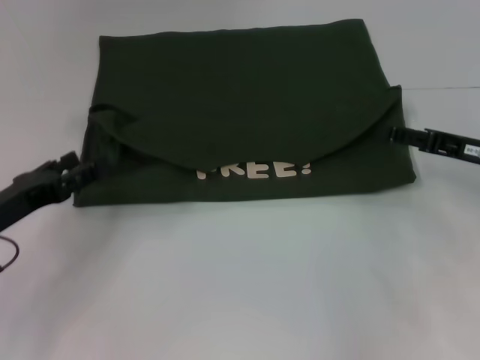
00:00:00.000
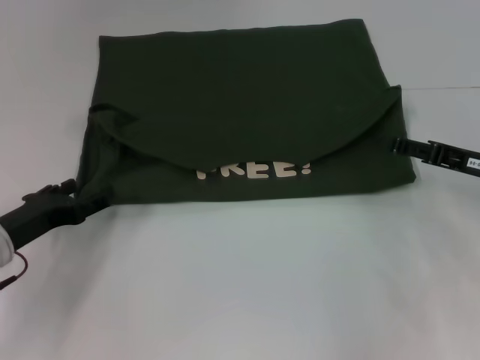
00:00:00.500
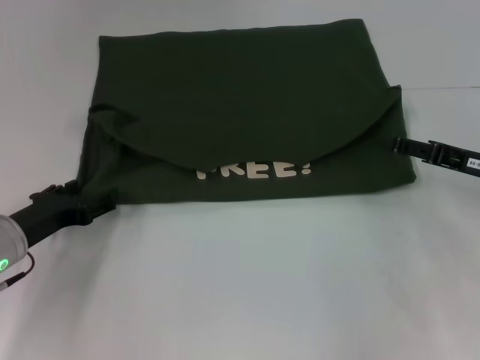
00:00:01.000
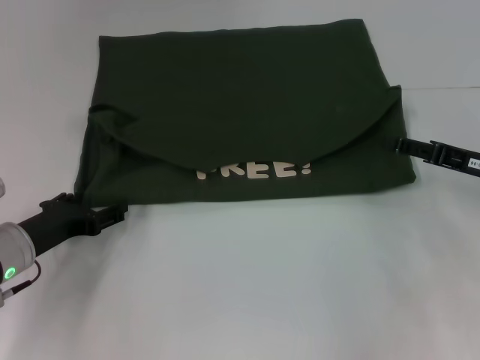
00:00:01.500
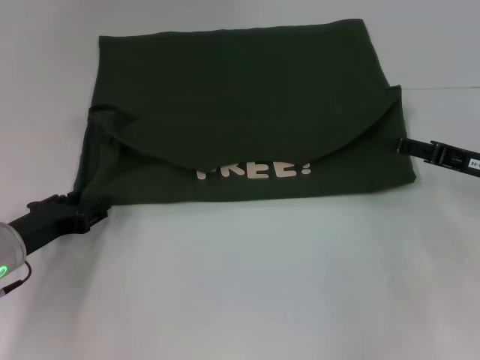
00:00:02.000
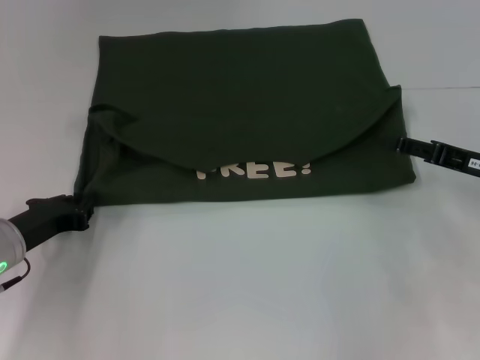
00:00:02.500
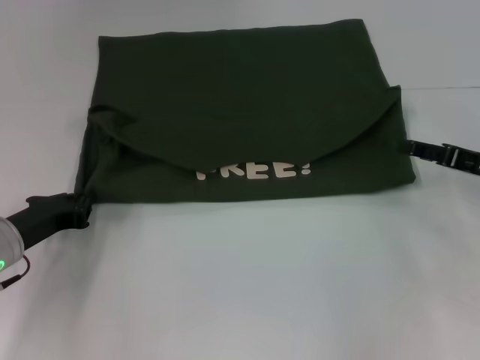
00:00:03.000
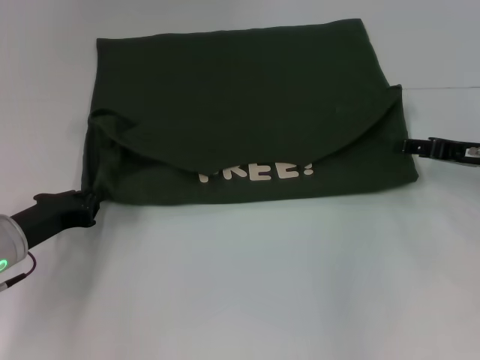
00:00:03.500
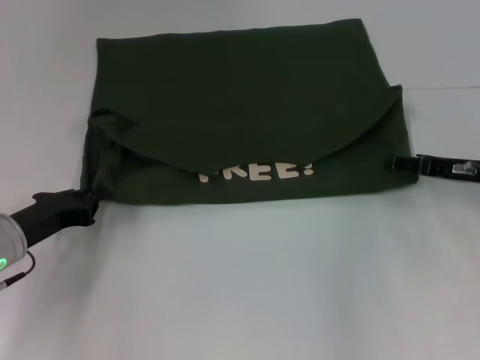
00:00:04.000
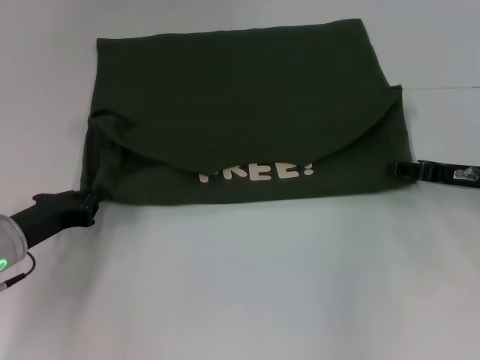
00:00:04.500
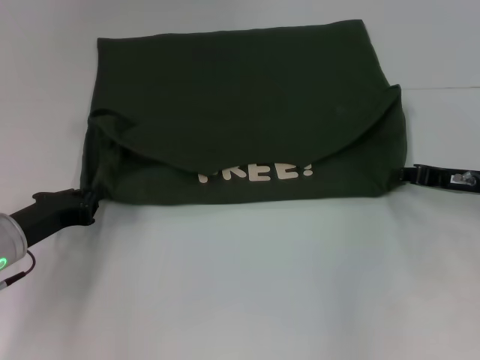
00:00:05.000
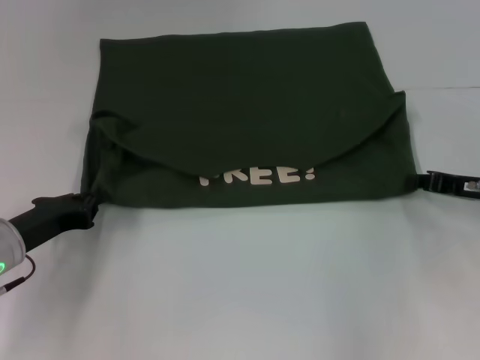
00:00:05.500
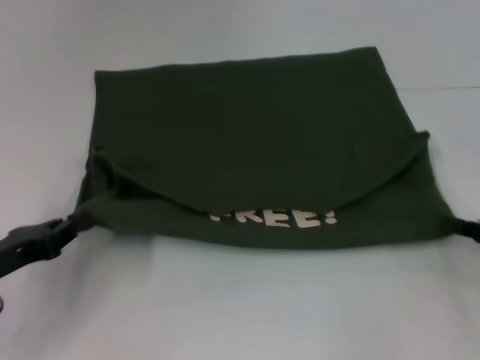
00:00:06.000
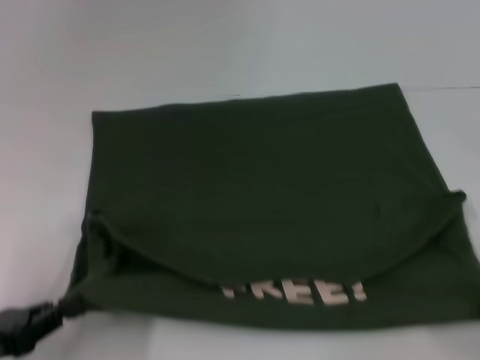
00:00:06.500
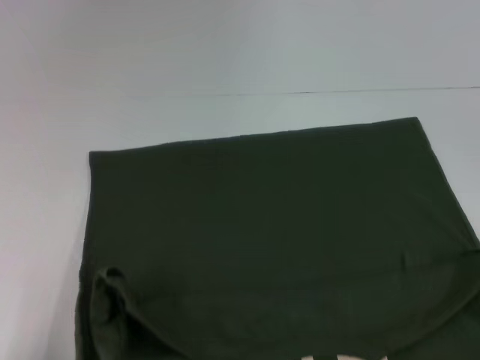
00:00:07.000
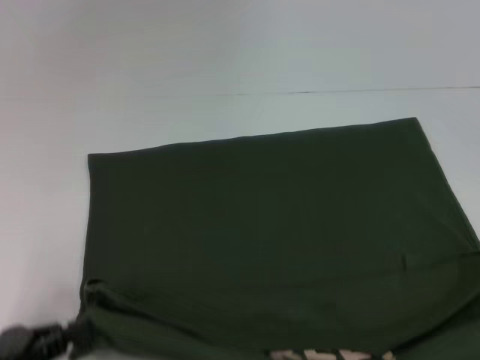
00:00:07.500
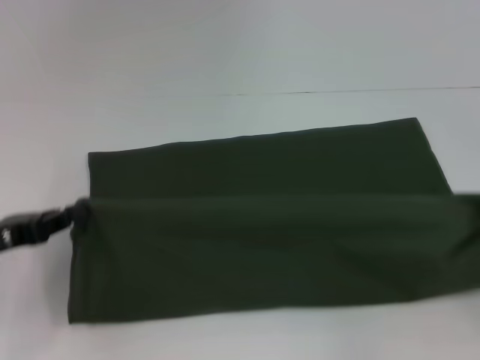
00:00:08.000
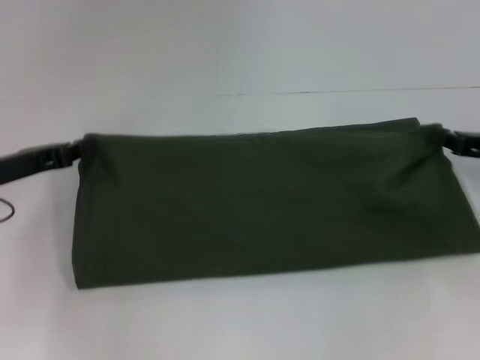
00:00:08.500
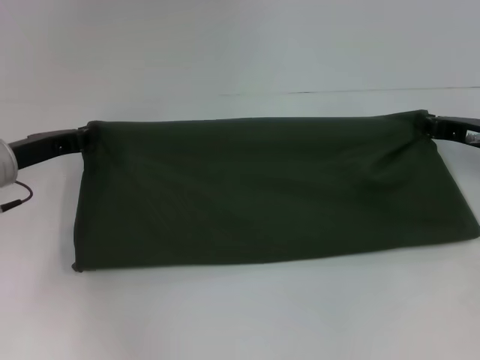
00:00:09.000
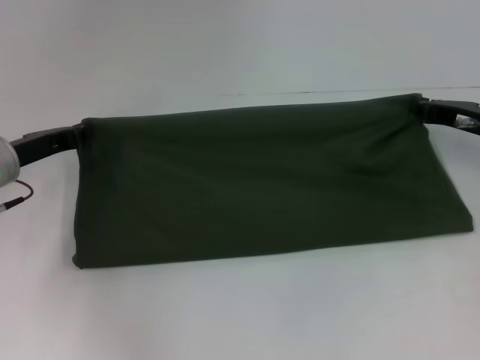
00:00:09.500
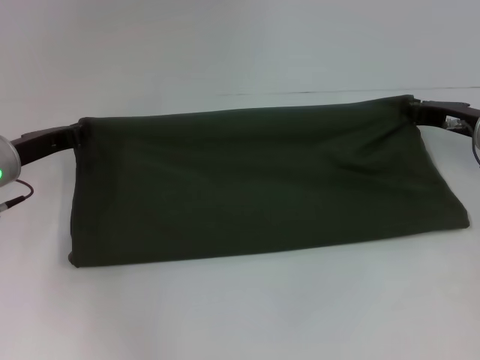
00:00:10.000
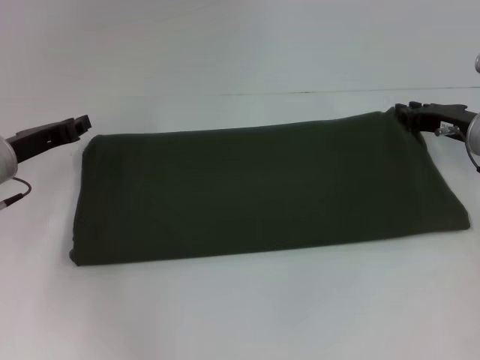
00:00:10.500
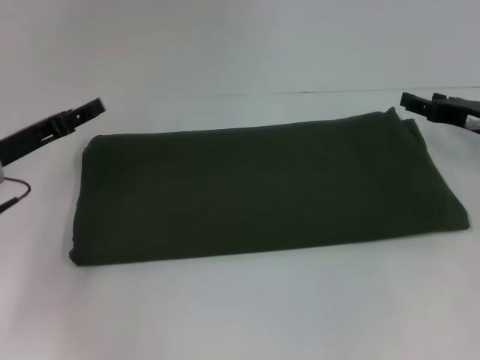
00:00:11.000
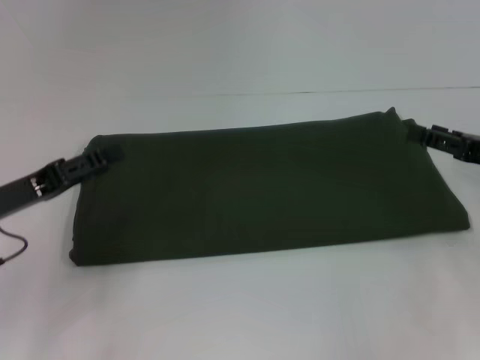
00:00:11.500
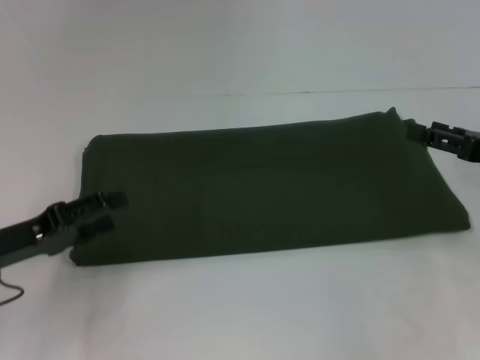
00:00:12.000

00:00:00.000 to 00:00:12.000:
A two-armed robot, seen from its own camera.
Step, 00:00:00.000 to 00:00:07.000: Pull the clothes with your left hand.
Step, 00:00:00.000 to 00:00:07.000: Pull the clothes with your right hand.
Step, 00:00:07.500 to 00:00:10.000: Fold the clothes with your right hand.
00:00:00.000 to 00:00:02.000: The left gripper changes place by about 5 cm.
00:00:02.000 to 00:00:04.000: The left gripper closes up.
00:00:04.000 to 00:00:06.000: The left gripper travels backward by about 5 cm. Meanwhile the right gripper goes roughly 10 cm backward and to the right, and closes.
00:00:06.000 to 00:00:08.000: The right gripper reaches approximately 20 cm backward, then returns. Meanwhile the left gripper travels backward and back again, some 10 cm each way.
00:00:08.000 to 00:00:10.000: The right gripper shifts about 20 cm forward and to the left. Meanwhile the left gripper shifts roughly 10 cm forward.
00:00:10.000 to 00:00:12.000: Both grippers travel together backward, some 10 cm. The right gripper opens its fingers. The left gripper opens up.

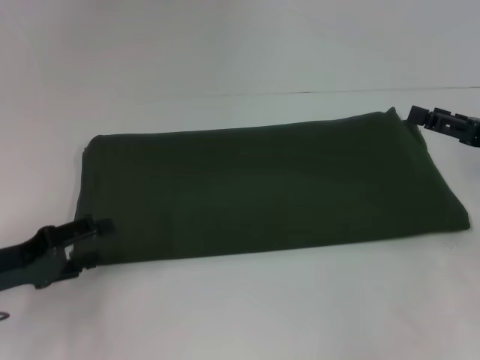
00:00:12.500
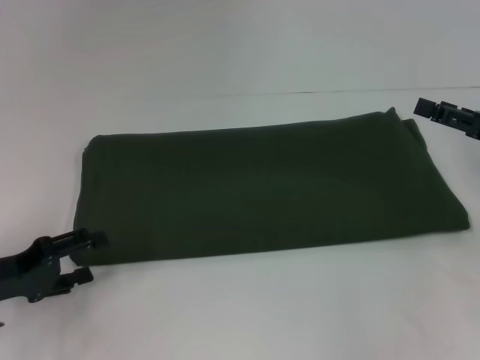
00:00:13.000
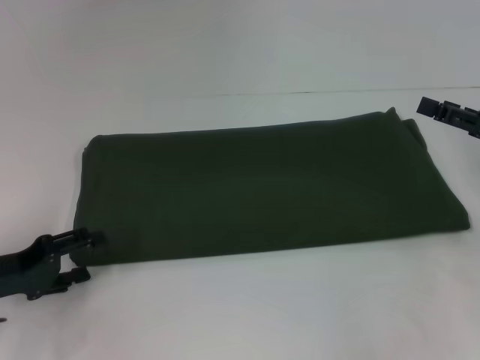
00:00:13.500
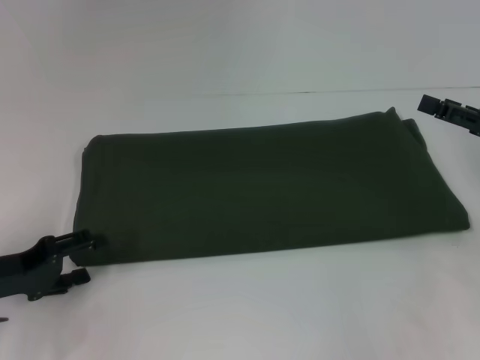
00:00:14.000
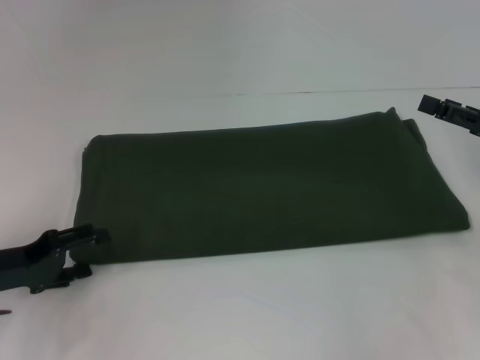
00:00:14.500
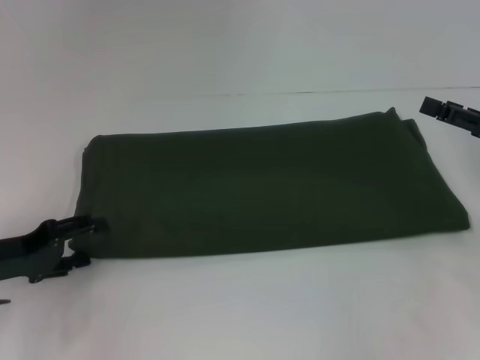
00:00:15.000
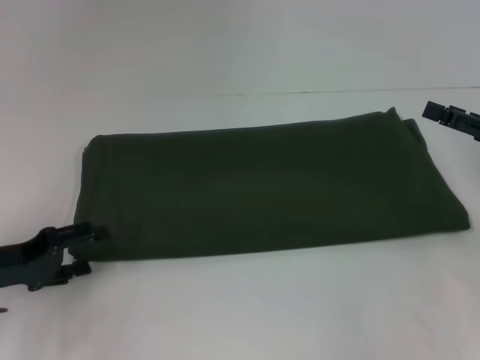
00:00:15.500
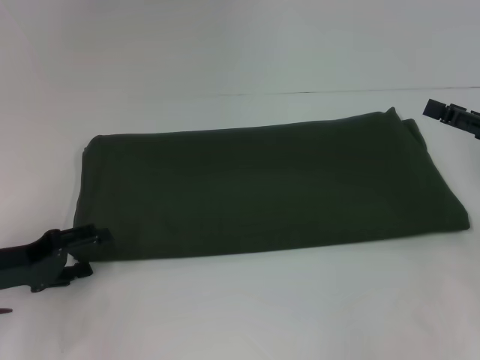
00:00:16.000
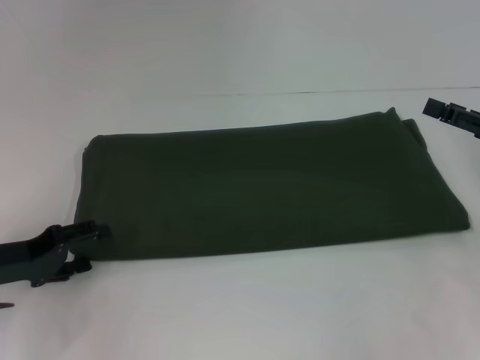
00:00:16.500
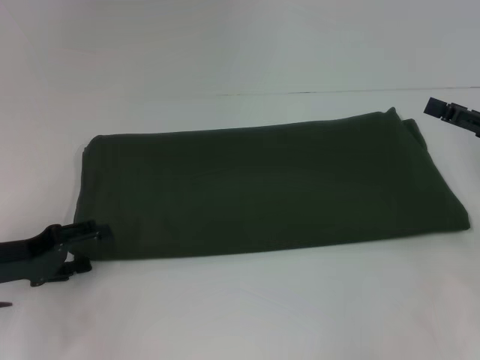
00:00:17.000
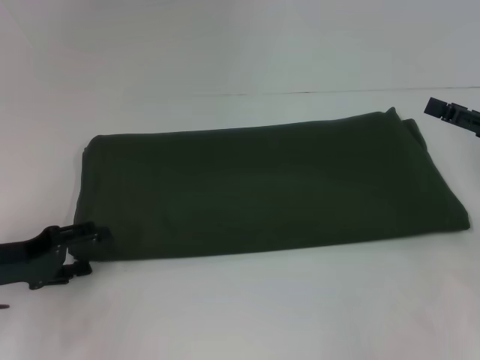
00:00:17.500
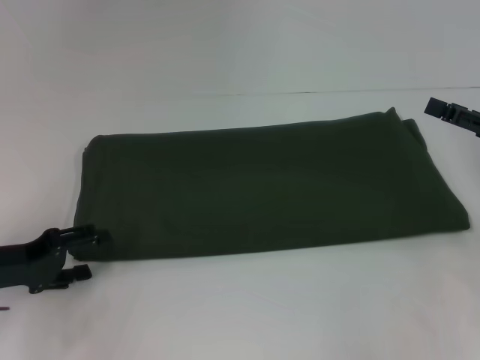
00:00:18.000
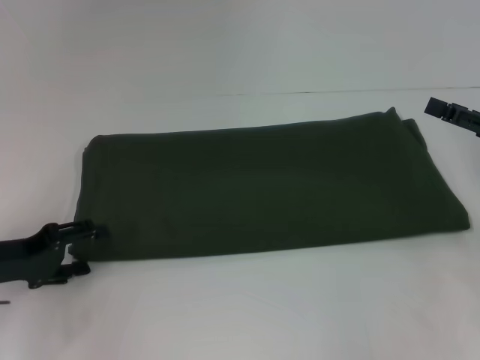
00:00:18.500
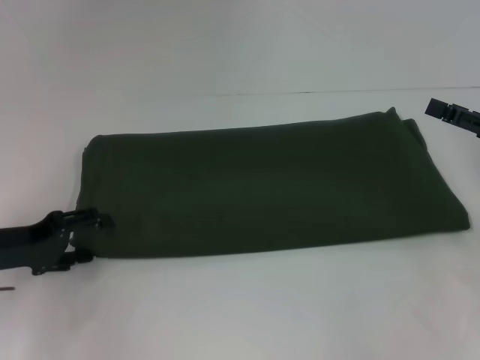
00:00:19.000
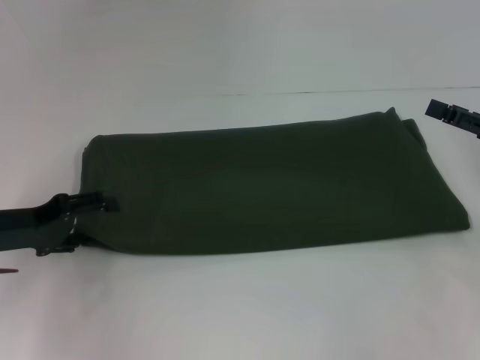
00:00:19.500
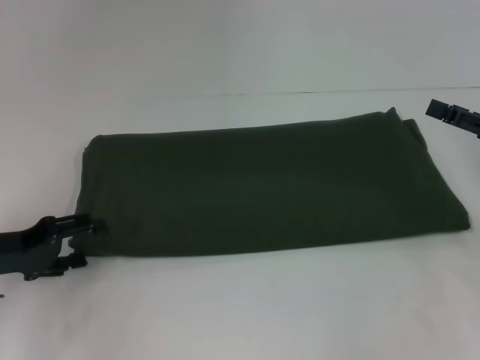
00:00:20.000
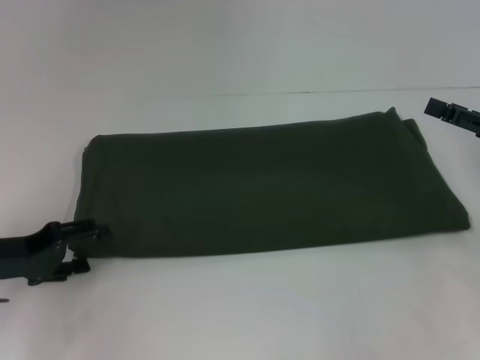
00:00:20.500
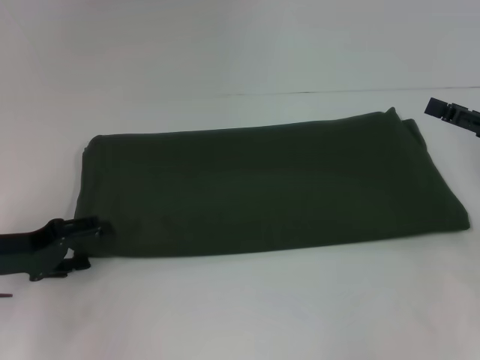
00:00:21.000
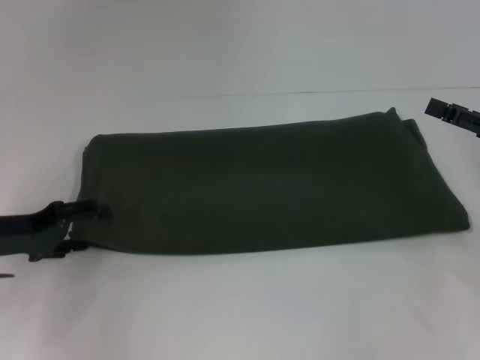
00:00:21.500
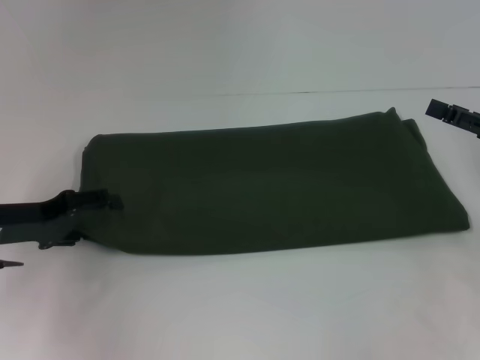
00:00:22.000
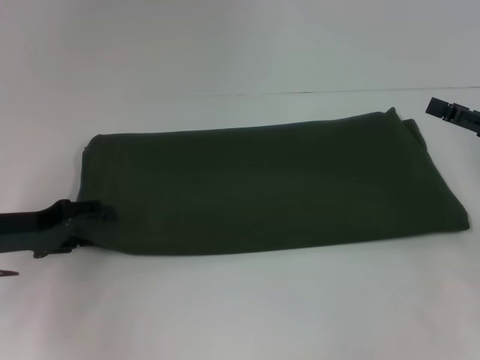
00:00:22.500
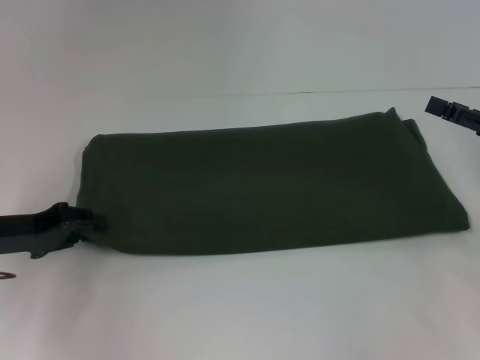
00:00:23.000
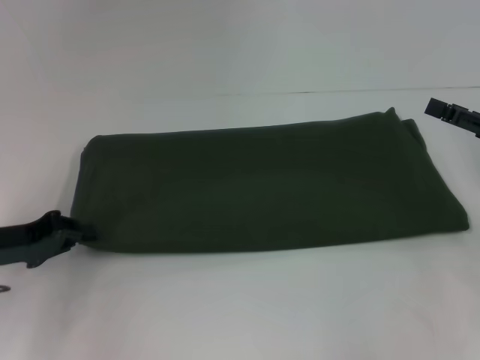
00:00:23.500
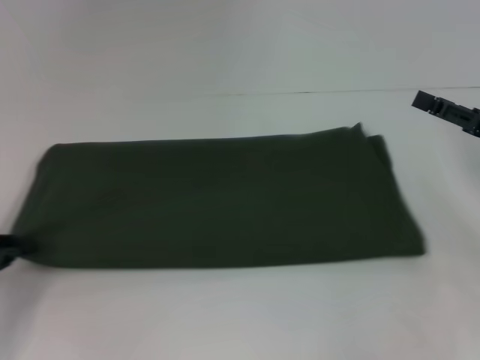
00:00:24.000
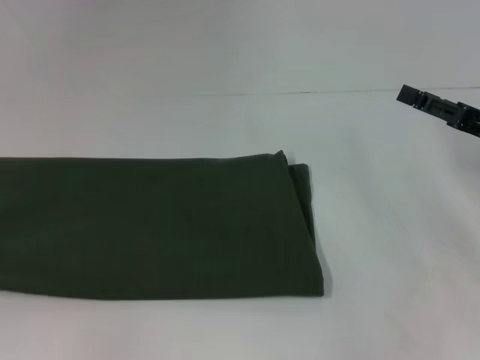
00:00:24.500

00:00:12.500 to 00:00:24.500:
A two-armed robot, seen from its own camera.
00:00:12.500 to 00:00:14.500: The grippers stay close to where they were, moving slightly.
00:00:14.500 to 00:00:18.500: The two grippers keep their place.
00:00:20.500 to 00:00:22.500: There are only small adjustments of the grippers.
00:00:22.500 to 00:00:24.500: The left gripper shifts roughly 20 cm to the left and backward, and closes.

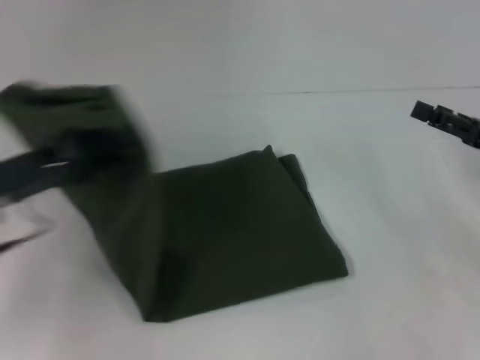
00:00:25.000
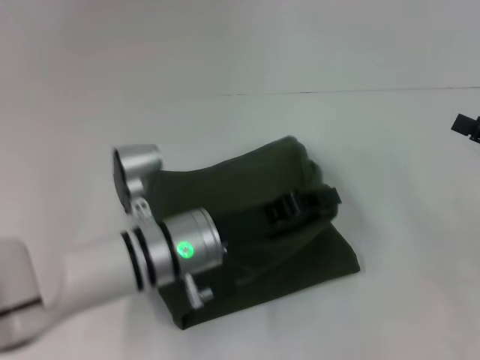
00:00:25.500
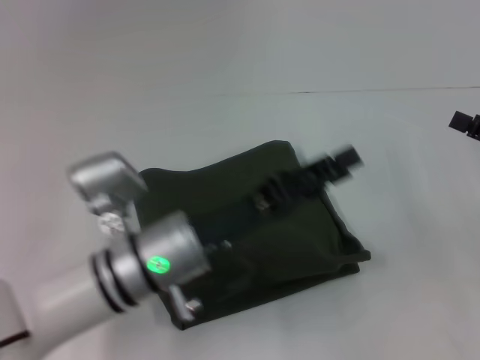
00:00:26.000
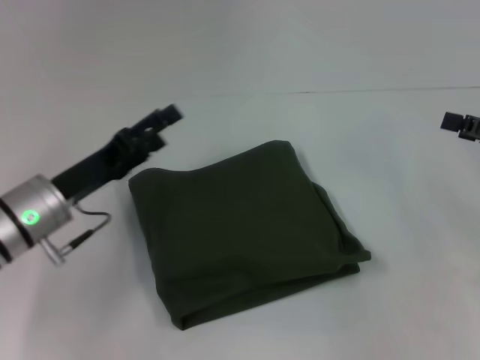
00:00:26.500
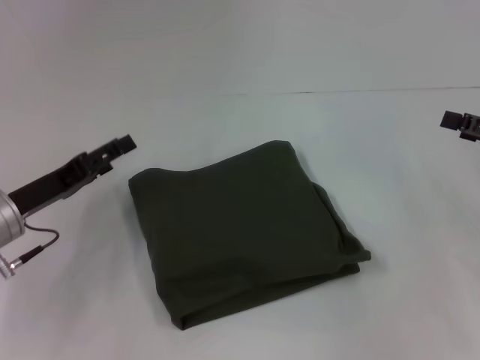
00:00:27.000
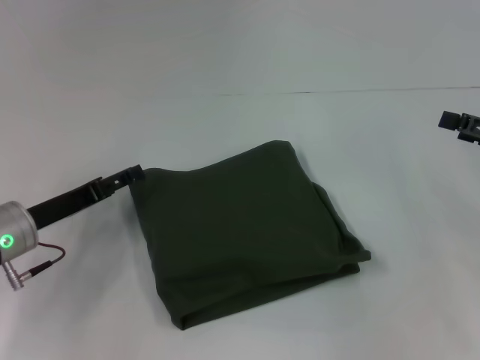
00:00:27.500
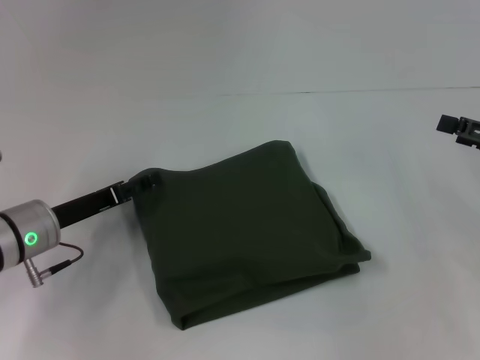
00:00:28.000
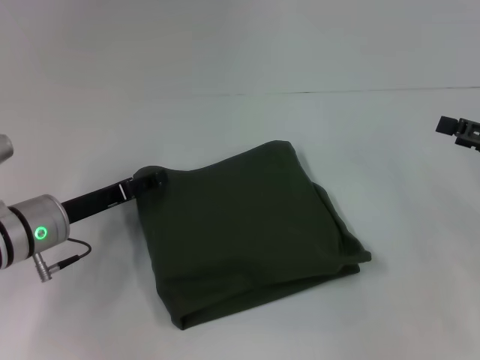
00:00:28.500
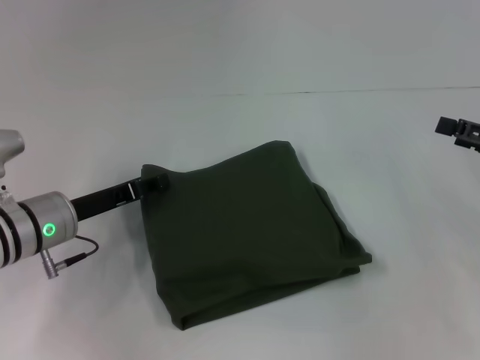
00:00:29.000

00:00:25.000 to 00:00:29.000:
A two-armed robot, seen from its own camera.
00:00:25.000 to 00:00:27.000: The left gripper travels downward by approximately 5 cm, travels to the right and back again, roughly 20 cm each way, and opens.
00:00:27.000 to 00:00:29.000: The left gripper moves roughly 5 cm, and closes its fingers.
